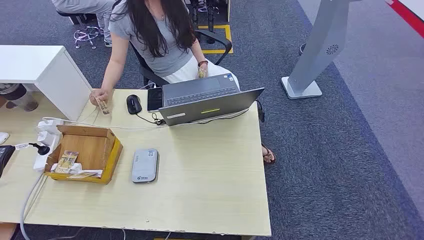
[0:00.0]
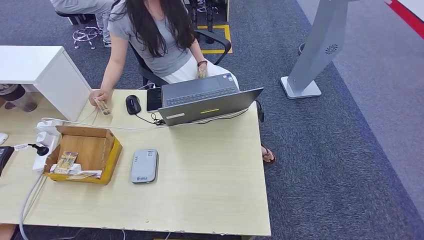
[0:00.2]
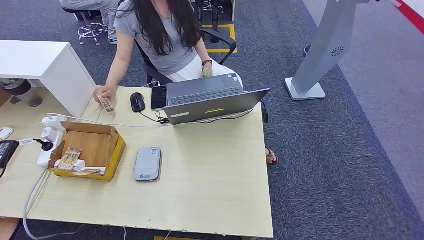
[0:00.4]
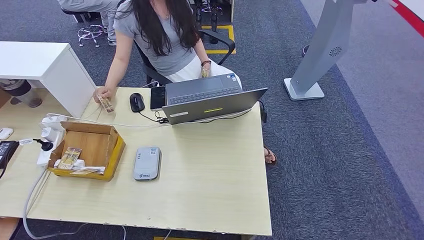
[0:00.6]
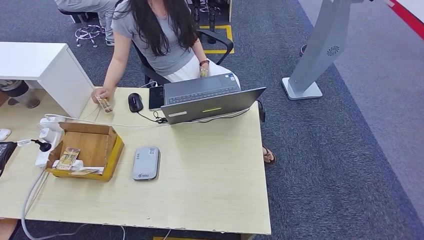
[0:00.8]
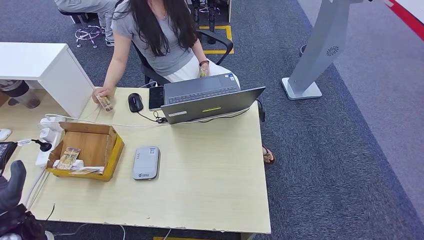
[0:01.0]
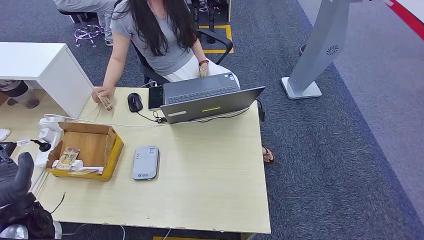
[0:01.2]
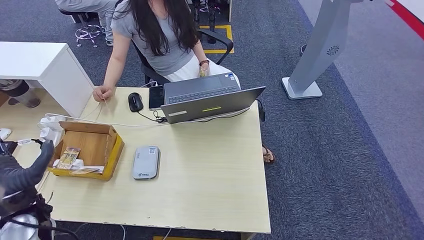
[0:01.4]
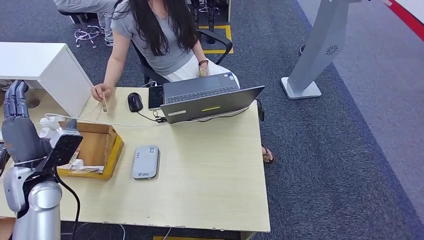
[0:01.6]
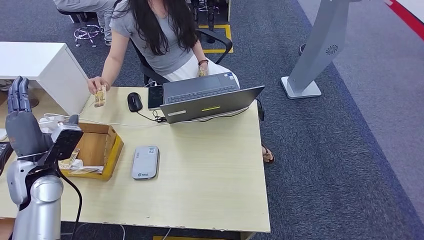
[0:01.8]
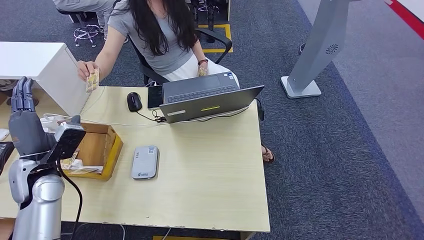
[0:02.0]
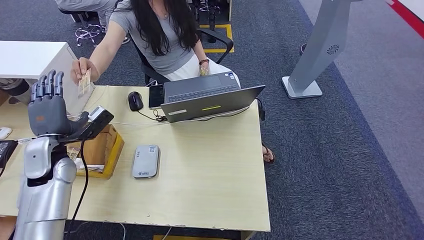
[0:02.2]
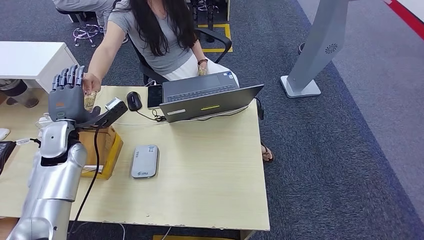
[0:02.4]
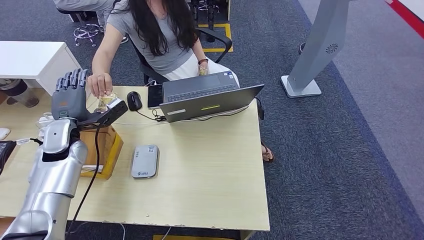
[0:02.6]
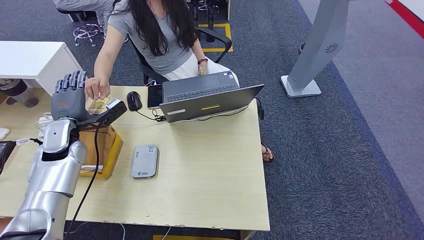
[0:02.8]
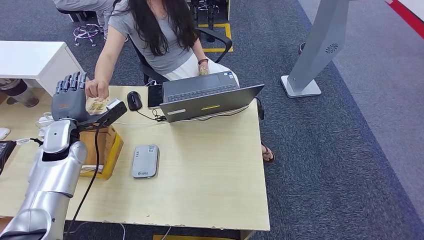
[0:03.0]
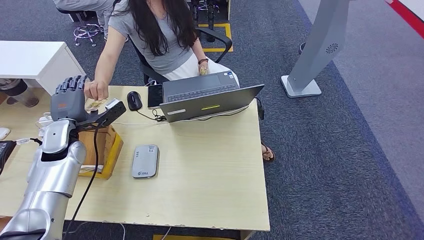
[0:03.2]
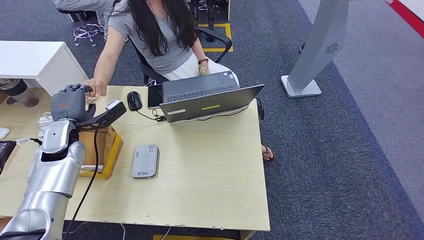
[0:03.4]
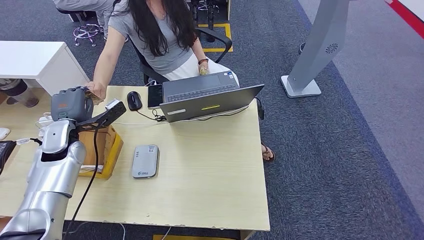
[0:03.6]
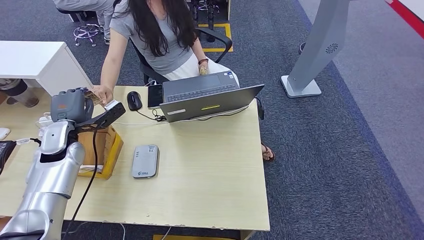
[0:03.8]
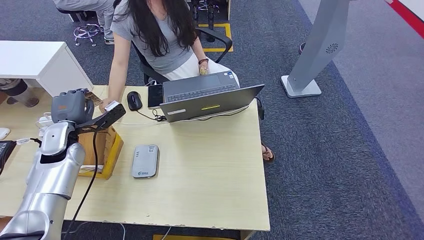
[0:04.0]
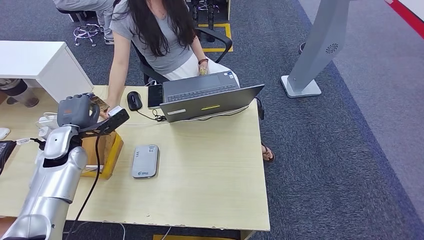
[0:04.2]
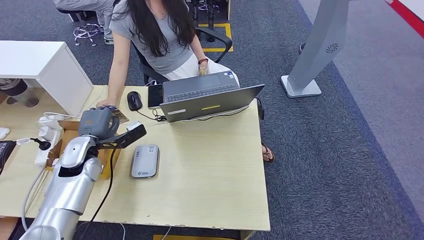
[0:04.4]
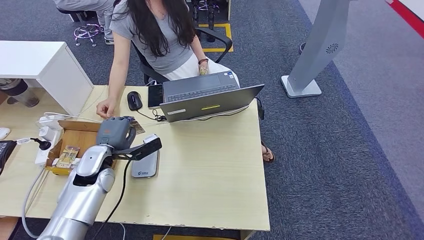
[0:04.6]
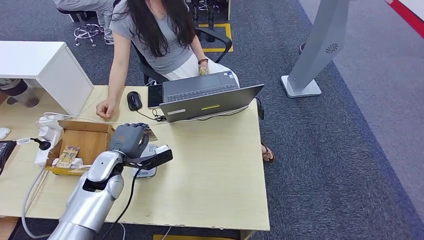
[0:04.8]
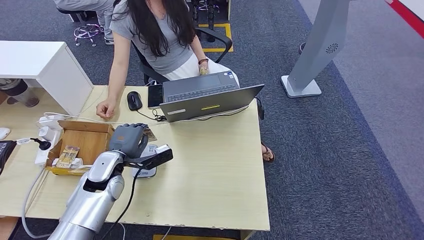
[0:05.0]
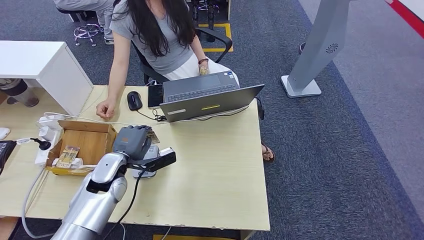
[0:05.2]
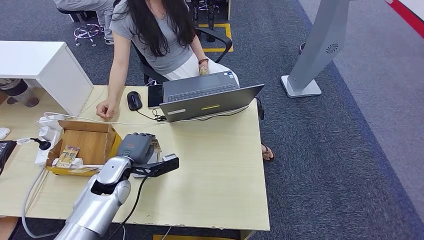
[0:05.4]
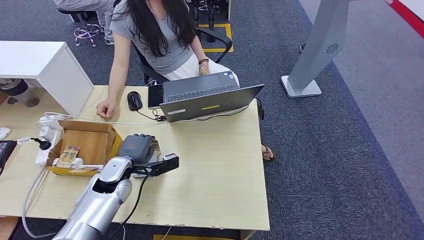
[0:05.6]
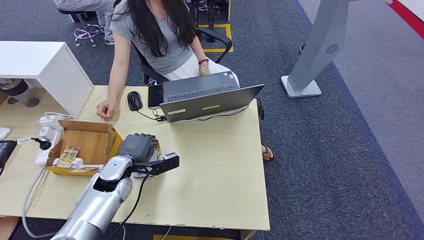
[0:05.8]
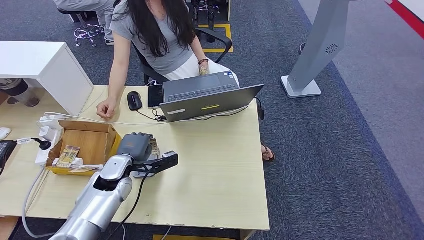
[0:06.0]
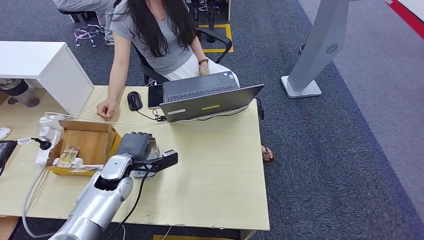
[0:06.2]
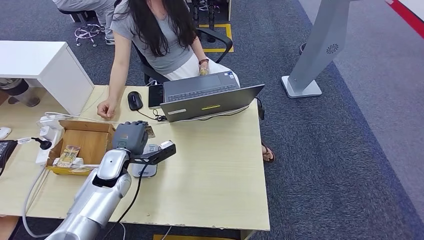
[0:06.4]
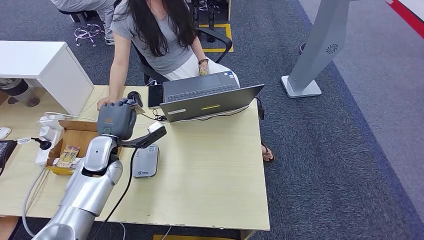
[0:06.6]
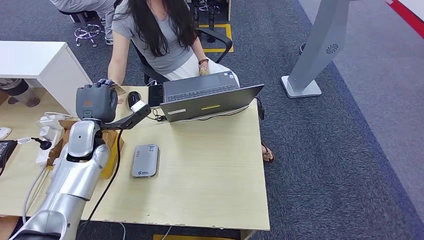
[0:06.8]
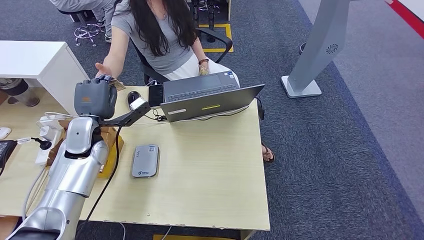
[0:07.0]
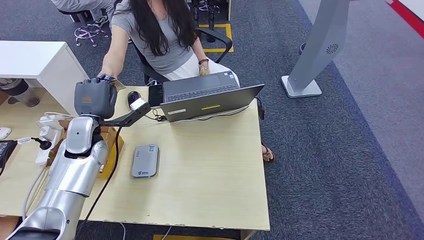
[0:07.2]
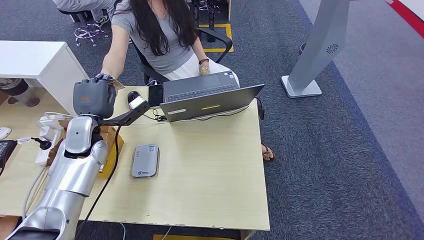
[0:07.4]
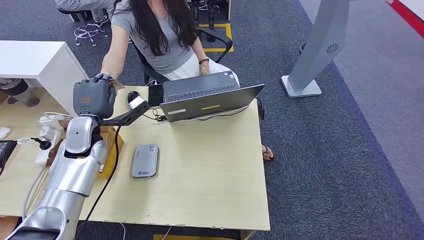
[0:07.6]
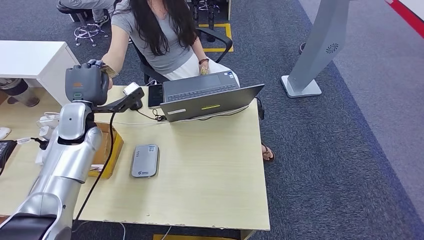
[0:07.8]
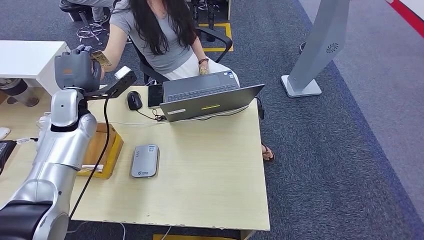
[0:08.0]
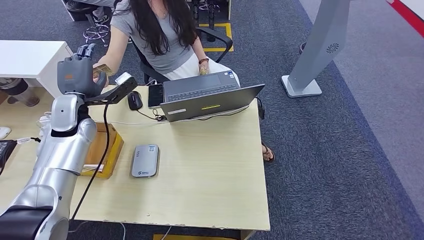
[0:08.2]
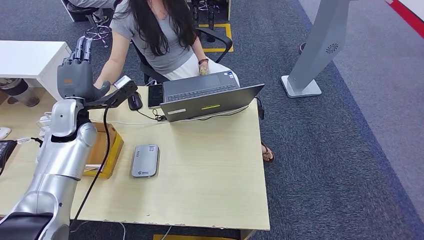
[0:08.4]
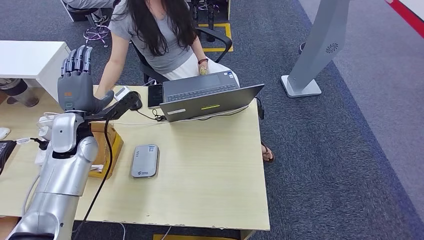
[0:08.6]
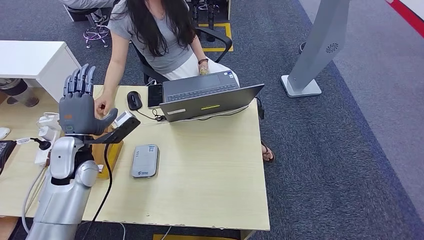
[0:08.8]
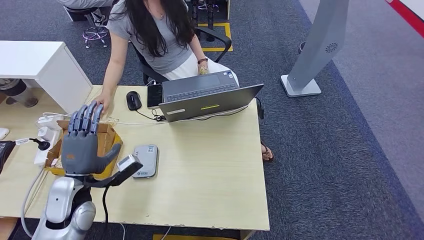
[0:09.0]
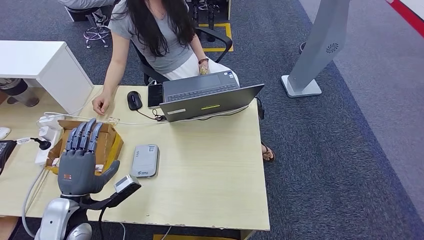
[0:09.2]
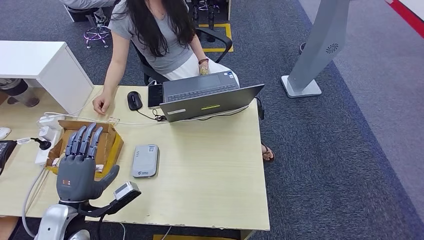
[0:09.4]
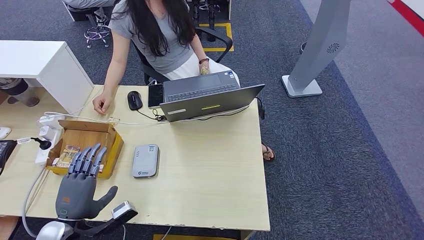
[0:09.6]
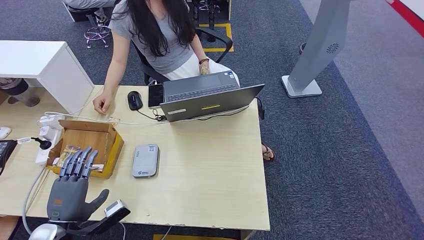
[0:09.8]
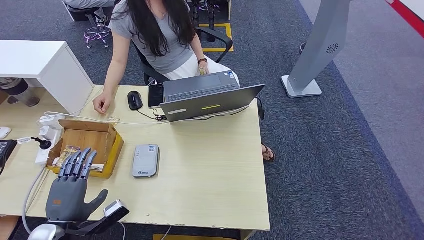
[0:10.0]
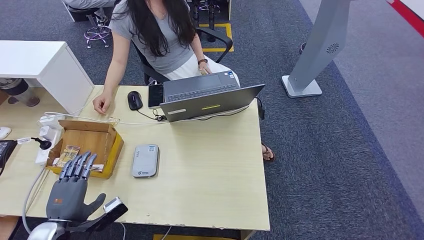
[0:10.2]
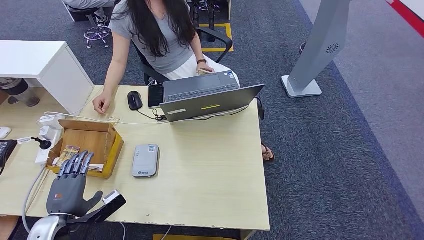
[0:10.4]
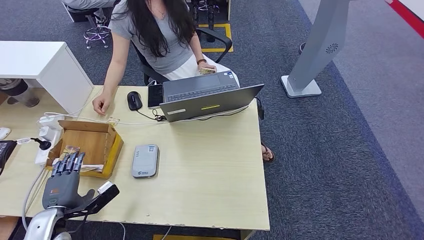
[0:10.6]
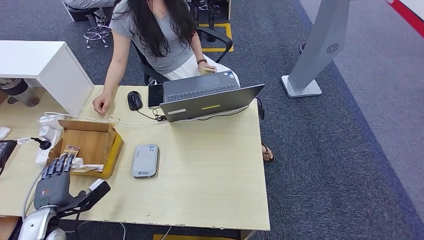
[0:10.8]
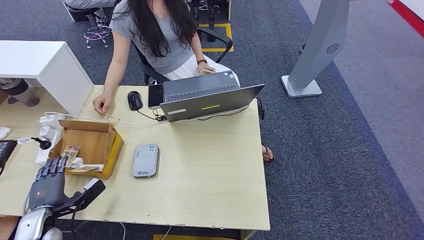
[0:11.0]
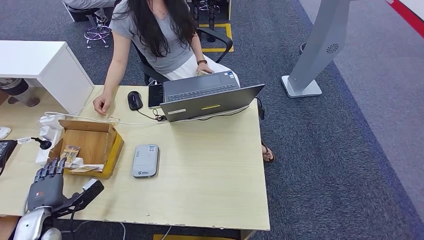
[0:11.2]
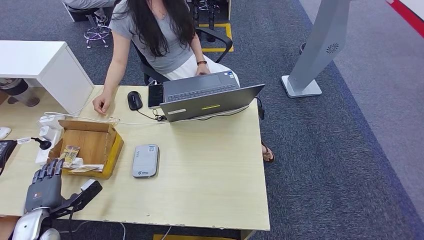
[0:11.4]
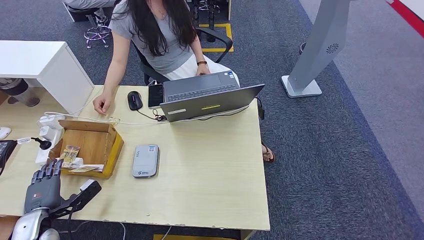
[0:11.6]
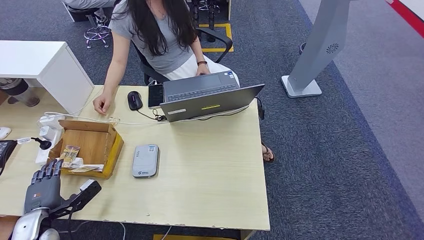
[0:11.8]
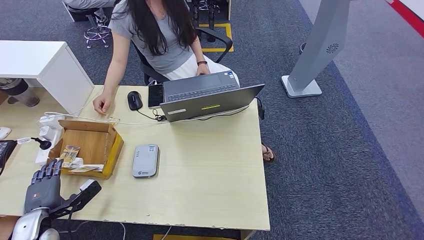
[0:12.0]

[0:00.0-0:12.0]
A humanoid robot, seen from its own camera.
Step, 0:00.0 to 0:03.6: Take the ID card from the person's hand.
Step, 0:04.6 to 0:06.4: Place the ID card on the card reader.
Step, 0:07.4 to 0:10.4: Hand the ID card to the person.
0:01.6 to 0:03.0: The left hand goes about 10 cm forward.
0:03.0 to 0:04.4: The left hand ends up some 5 cm from where it was.
0:04.4 to 0:06.0: The left hand moves to the right and downward, roughly 10 cm.
0:06.0 to 0:07.6: The left hand moves upward, forward and to the left, roughly 15 cm.
0:07.6 to 0:09.0: The left hand is displaced backward by approximately 15 cm.
0:09.0 to 0:10.4: The left hand is displaced backward, downward and to the left by some 10 cm.
0:10.4 to 0:12.0: The left hand shifts roughly 10 cm to the left.

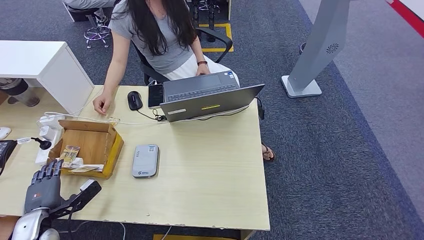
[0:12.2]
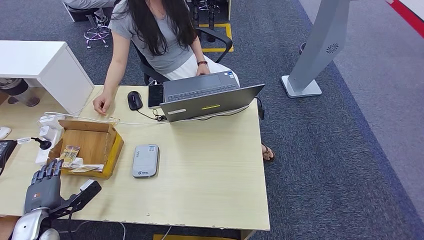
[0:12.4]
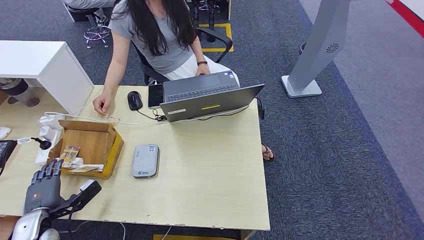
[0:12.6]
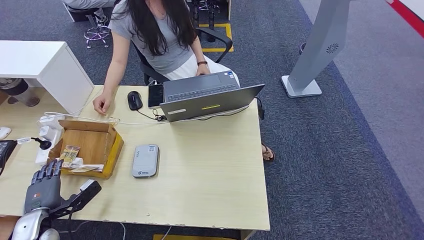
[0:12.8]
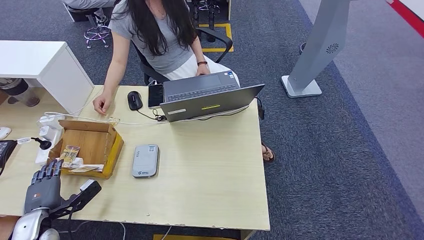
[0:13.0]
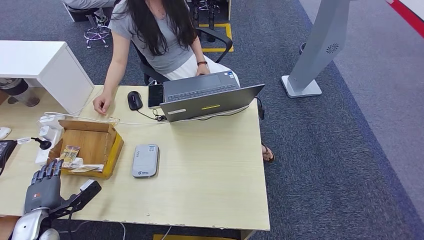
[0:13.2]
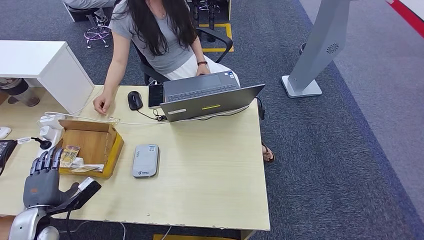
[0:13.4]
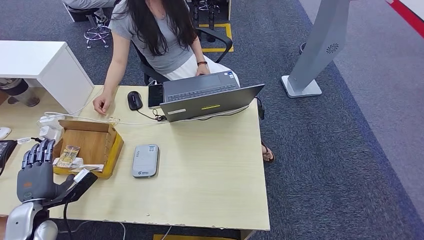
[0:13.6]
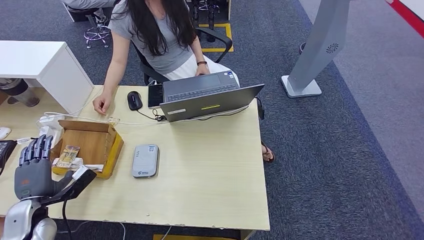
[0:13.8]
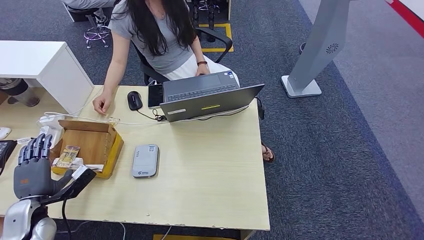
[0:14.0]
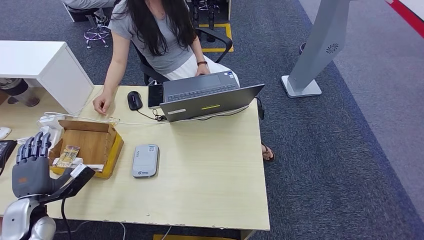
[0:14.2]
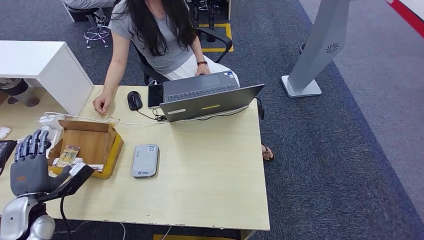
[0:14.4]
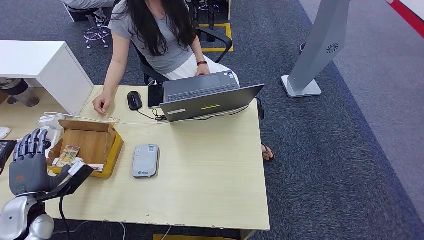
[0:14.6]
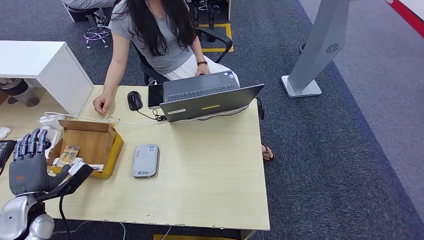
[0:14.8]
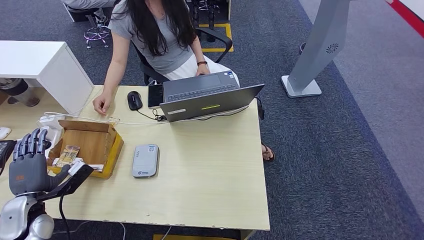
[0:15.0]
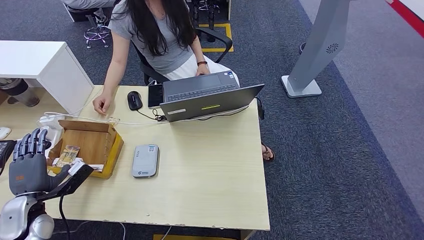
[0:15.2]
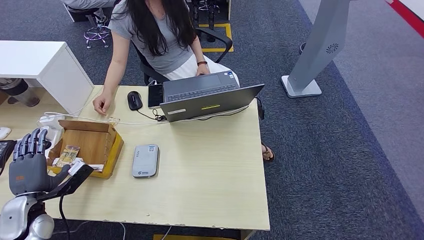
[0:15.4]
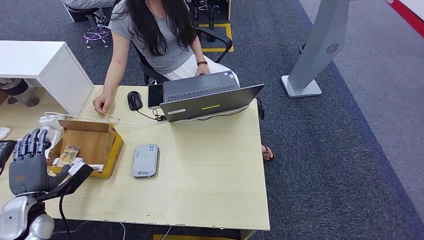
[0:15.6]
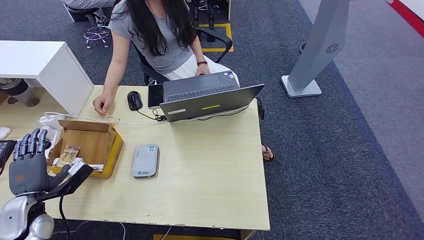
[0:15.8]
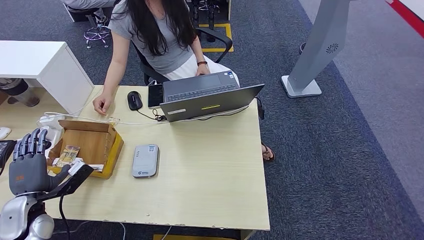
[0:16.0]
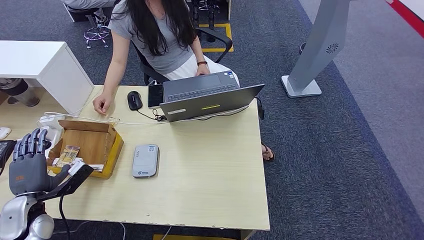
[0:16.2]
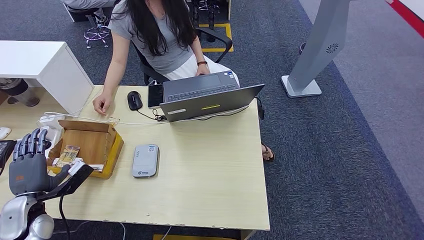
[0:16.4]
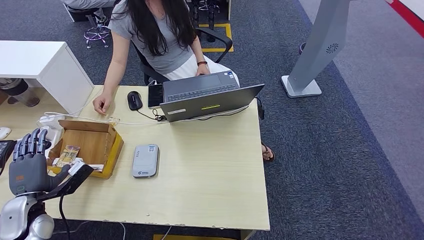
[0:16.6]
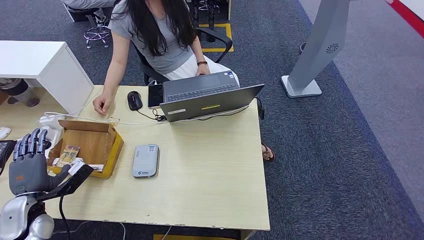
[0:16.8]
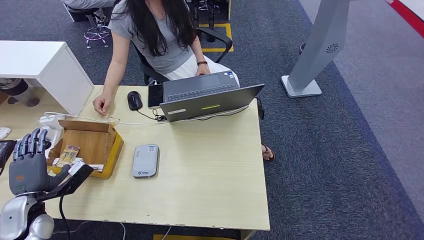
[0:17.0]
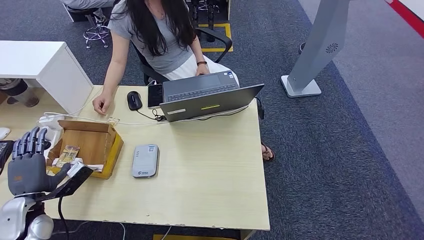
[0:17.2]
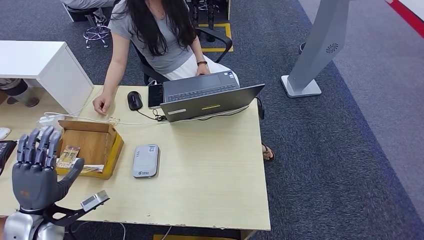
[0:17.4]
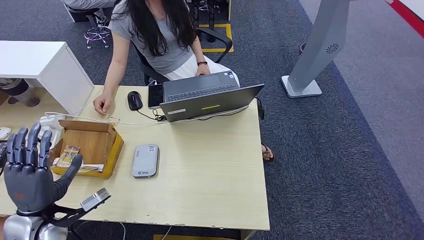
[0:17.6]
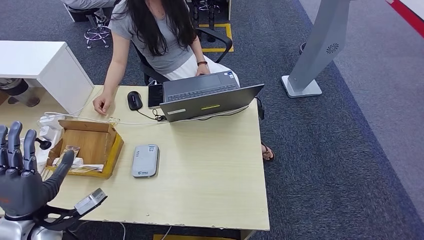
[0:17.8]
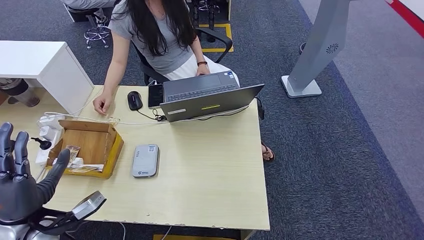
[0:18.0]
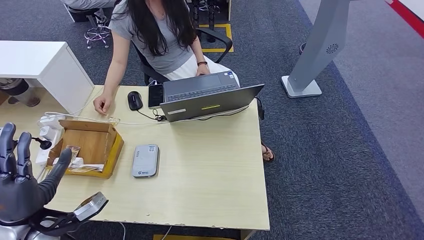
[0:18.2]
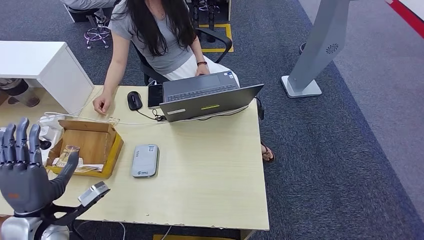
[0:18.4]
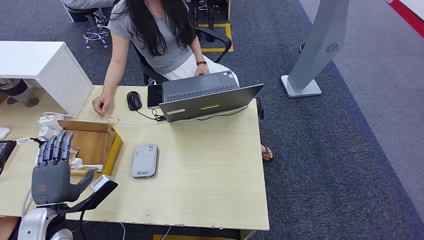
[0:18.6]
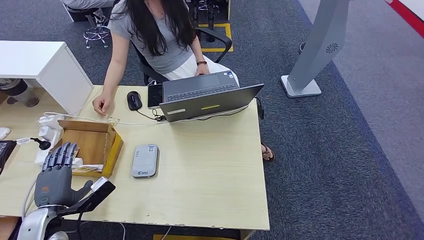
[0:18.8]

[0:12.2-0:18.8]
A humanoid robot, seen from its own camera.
0:13.8 to 0:17.2: The hands make only small movements.
0:17.2 to 0:18.8: The left hand goes some 5 cm to the right, and moves about 10 cm upward and comes back.
